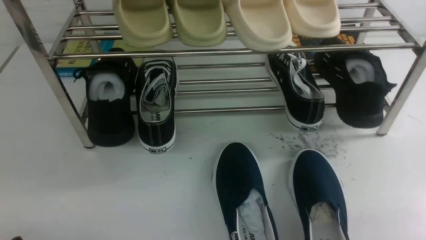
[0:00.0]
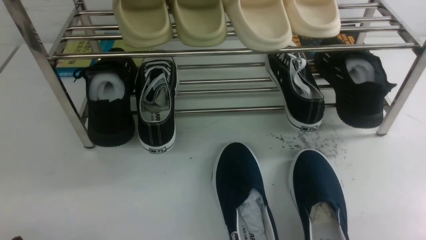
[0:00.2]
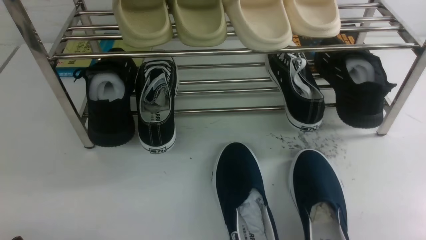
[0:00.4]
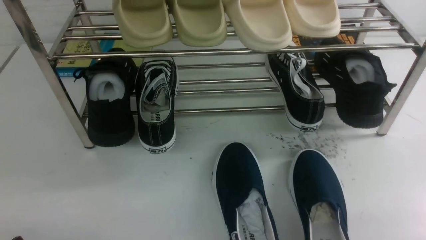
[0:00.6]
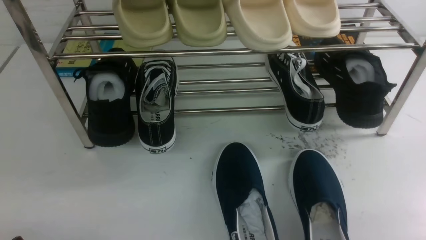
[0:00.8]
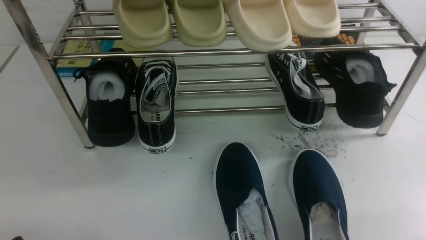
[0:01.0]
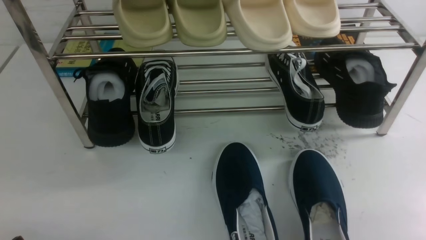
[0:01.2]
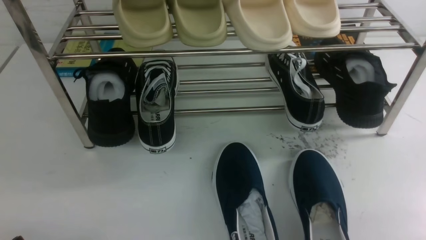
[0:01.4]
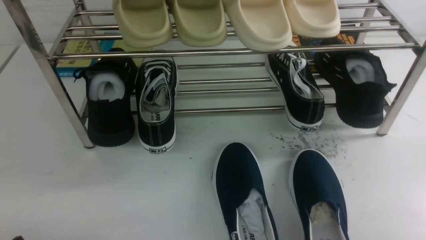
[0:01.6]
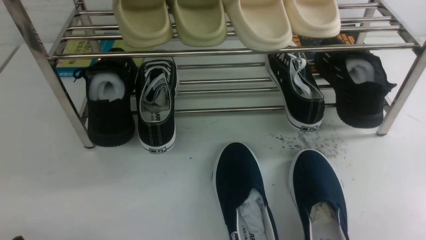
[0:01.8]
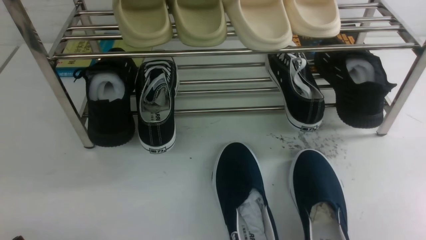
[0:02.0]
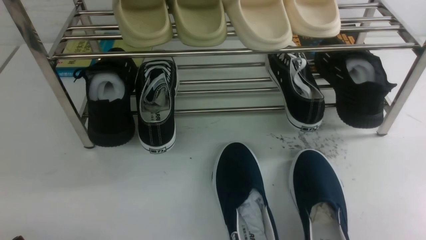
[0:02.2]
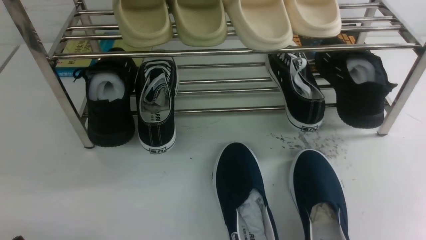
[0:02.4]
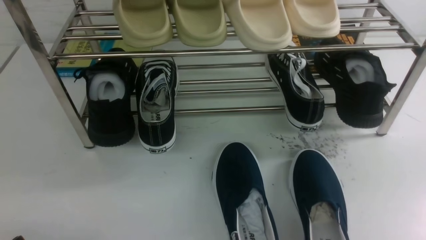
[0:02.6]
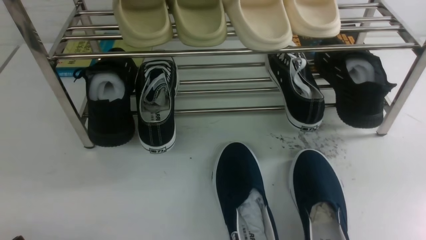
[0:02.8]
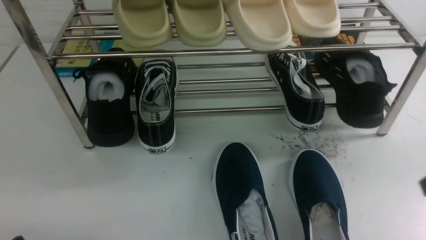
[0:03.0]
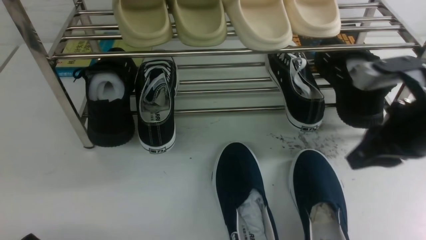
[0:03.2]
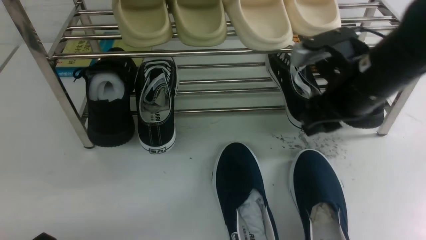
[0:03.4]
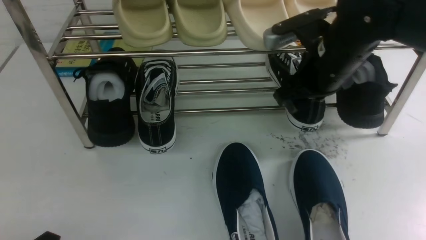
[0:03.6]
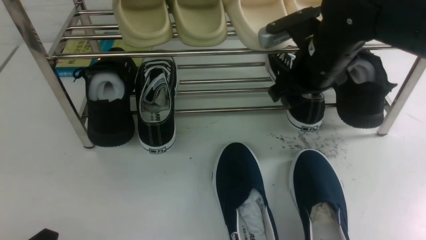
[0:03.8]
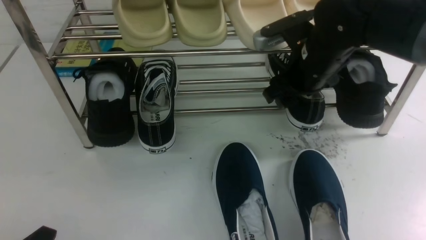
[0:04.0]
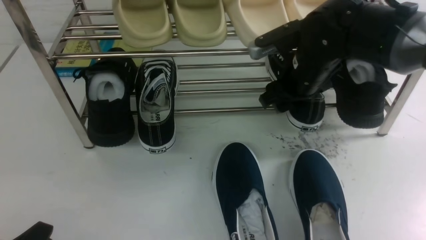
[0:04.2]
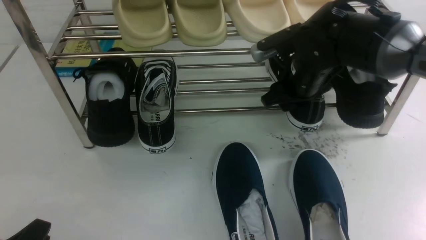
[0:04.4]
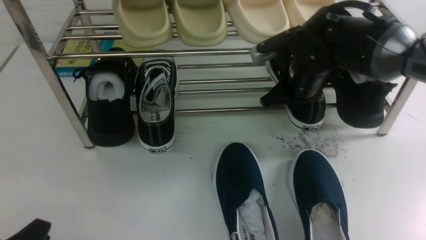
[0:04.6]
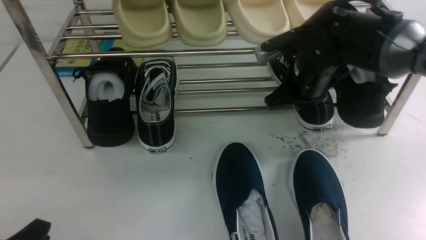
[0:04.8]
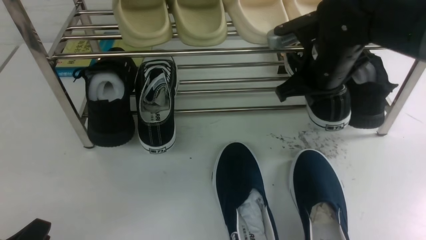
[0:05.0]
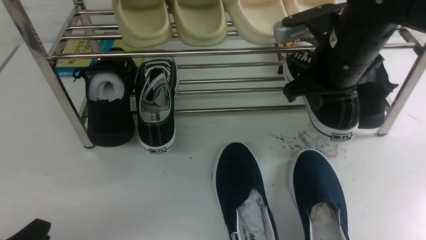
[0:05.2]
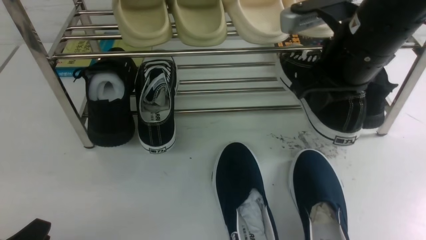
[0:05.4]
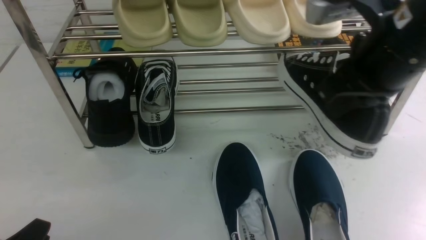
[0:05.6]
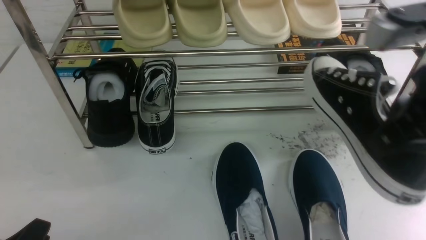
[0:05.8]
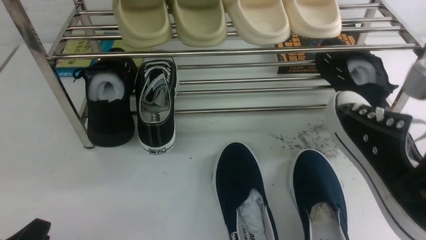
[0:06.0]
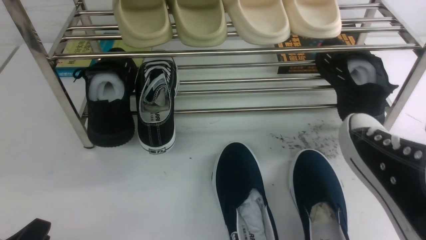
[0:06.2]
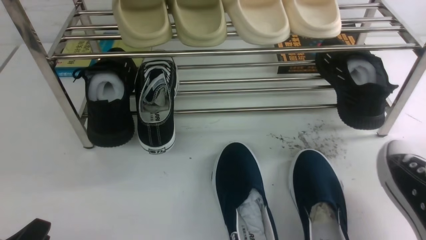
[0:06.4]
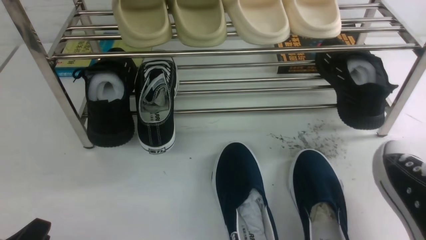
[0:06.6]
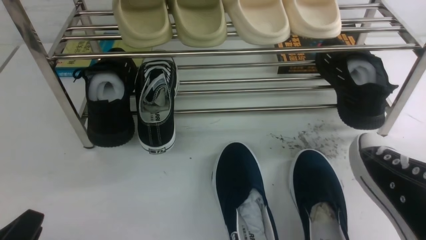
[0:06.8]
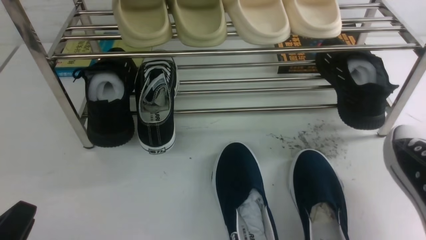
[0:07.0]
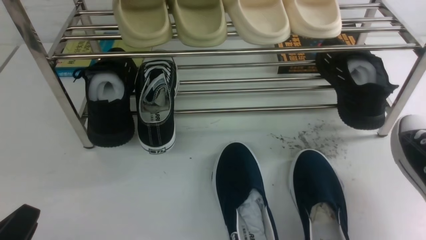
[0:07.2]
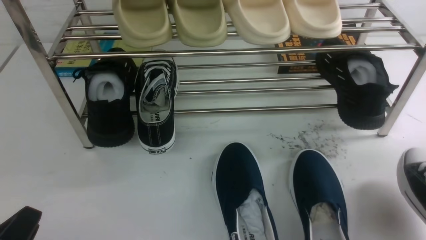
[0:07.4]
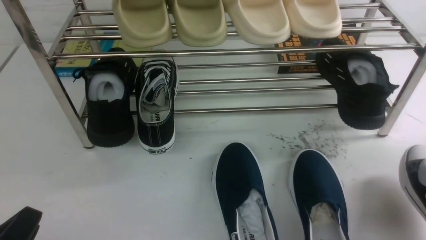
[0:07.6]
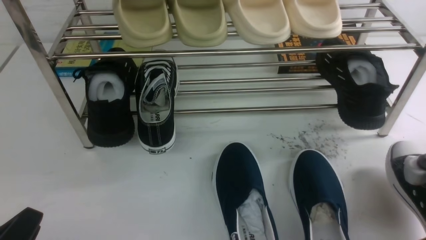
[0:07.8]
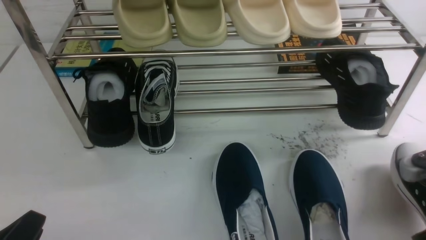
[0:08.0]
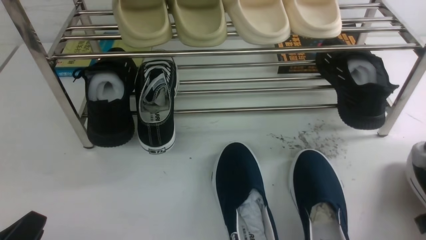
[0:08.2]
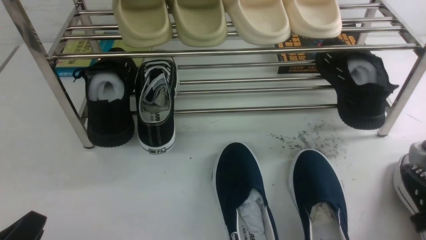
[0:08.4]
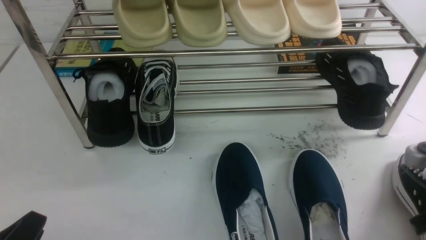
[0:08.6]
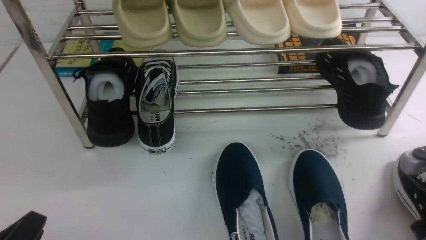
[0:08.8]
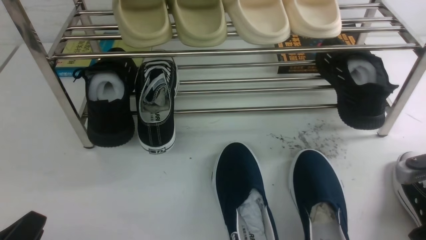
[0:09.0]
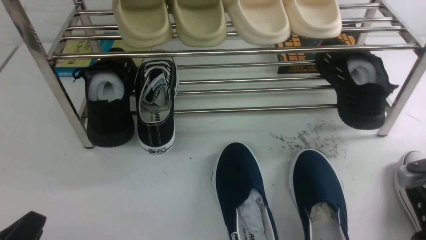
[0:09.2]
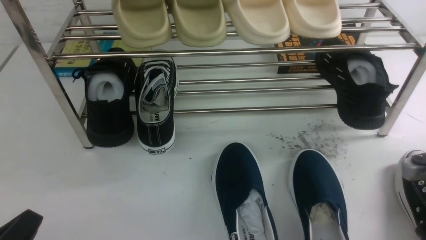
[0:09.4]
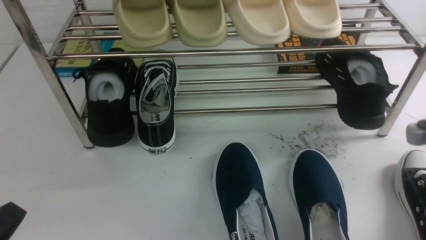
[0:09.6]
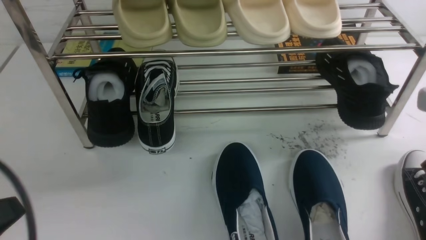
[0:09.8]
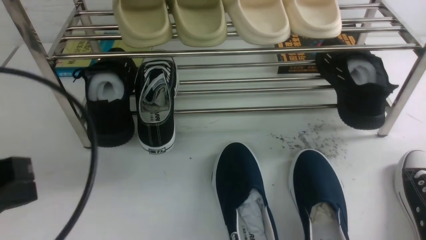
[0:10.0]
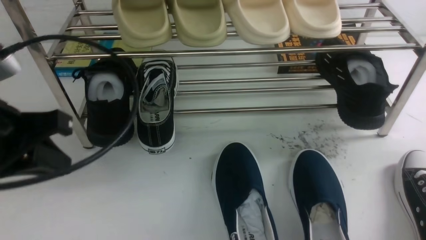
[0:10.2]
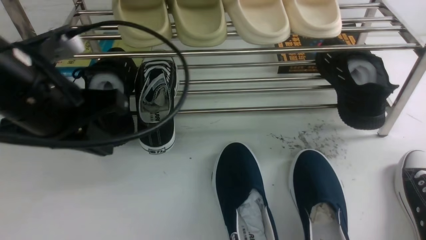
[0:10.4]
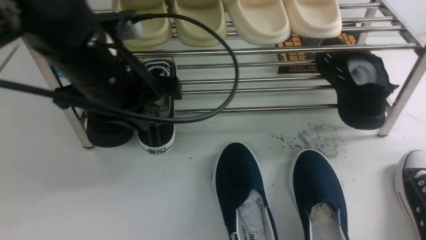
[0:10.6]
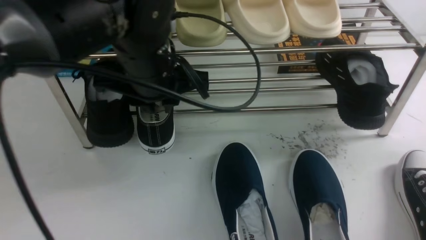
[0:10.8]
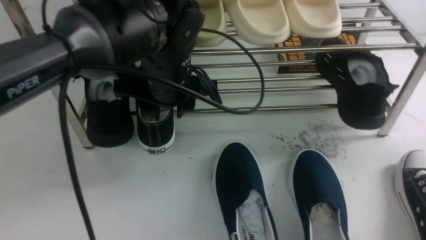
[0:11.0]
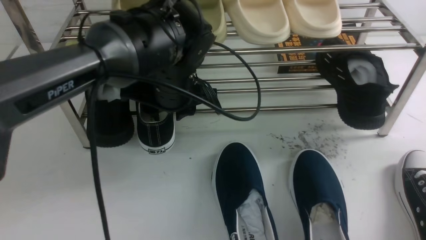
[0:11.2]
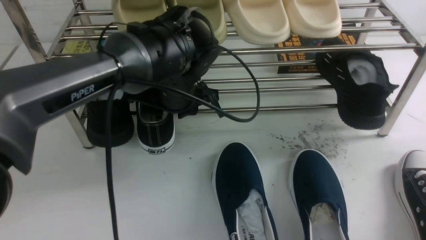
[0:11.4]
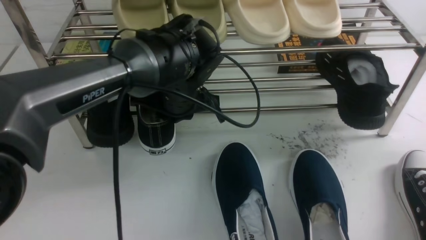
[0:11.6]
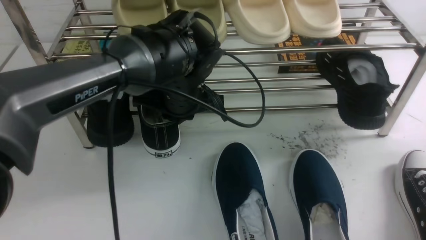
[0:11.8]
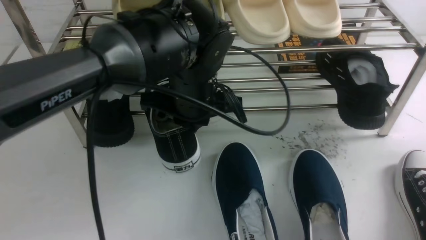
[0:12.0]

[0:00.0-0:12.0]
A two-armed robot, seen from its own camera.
Step, 0:00.0 to 0:05.0: use the right arm to clamp a shoe on the right side of the shoe rack.
Step, 0:05.2 to 0:10.0: use the right arm to take out the clamped shoe from the shoe rack and put it down.
0:03.0 to 0:04.4: The right gripper heads forward and to the left, covering roughly 25 cm, and opens its fingers.
0:04.4 to 0:06.0: The right gripper is displaced backward, upward and to the right by some 30 cm, and closes up.
0:06.0 to 0:07.6: The right gripper moves downward, some 10 cm.
0:07.6 to 0:09.0: The right gripper travels forward by approximately 5 cm.
0:09.0 to 0:10.4: The left gripper shifts roughly 25 cm forward, upward and to the right, and closes; the right gripper moves upward, approximately 10 cm, and opens, then closes once more.
0:10.4 to 0:12.0: The left gripper moves to the right and forward, roughly 15 cm, and opens, then closes once more.

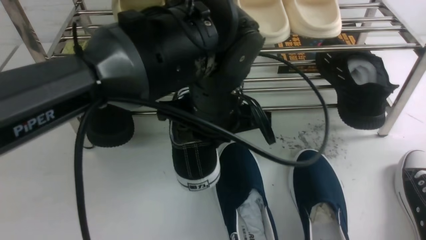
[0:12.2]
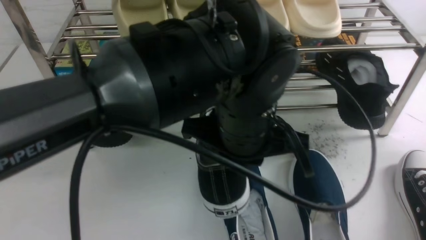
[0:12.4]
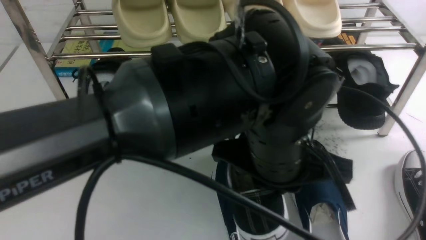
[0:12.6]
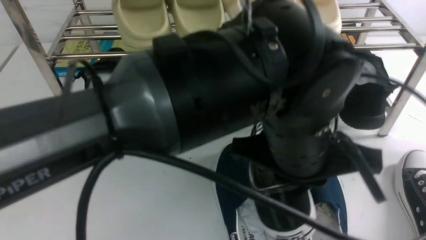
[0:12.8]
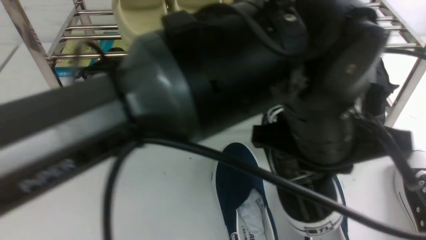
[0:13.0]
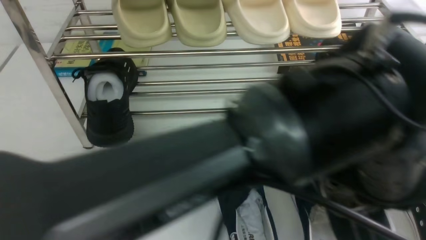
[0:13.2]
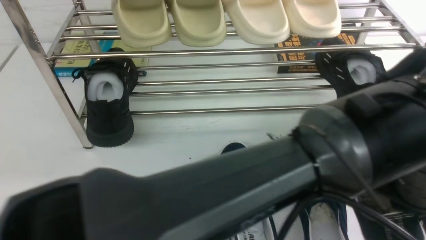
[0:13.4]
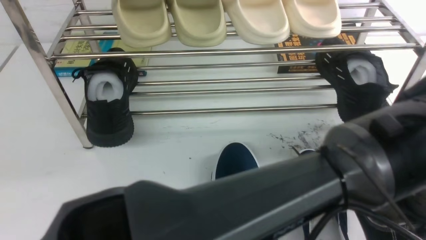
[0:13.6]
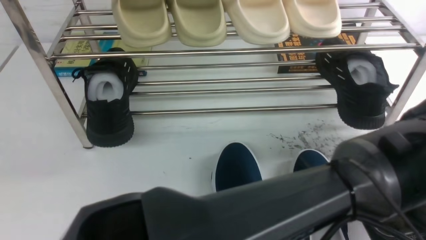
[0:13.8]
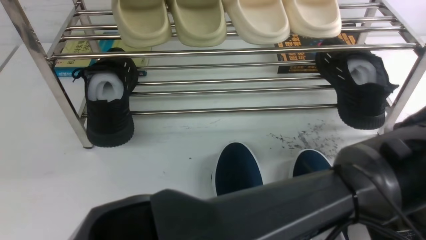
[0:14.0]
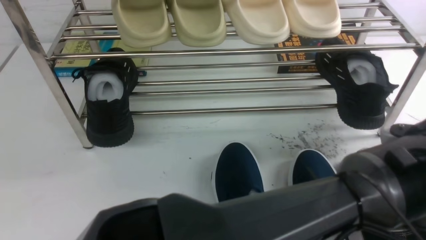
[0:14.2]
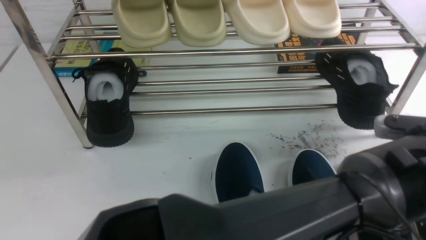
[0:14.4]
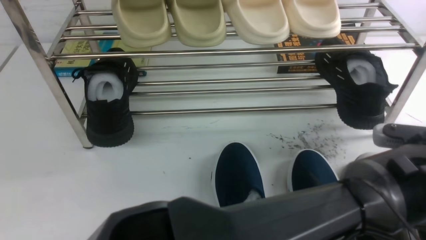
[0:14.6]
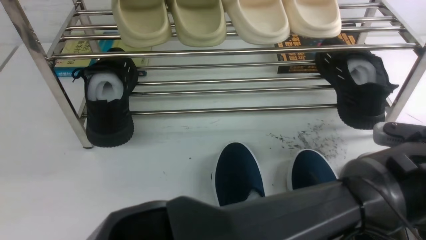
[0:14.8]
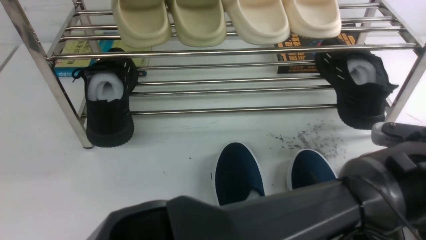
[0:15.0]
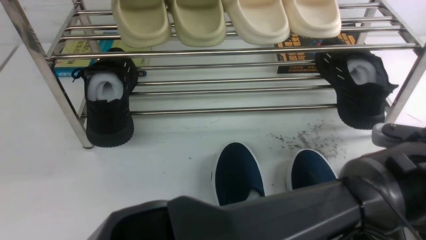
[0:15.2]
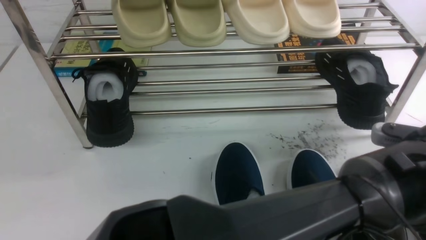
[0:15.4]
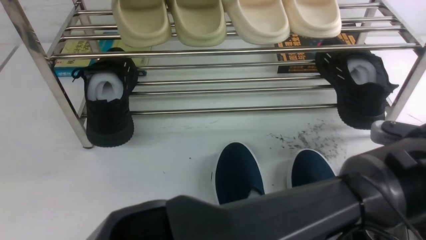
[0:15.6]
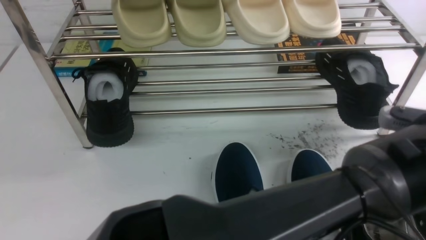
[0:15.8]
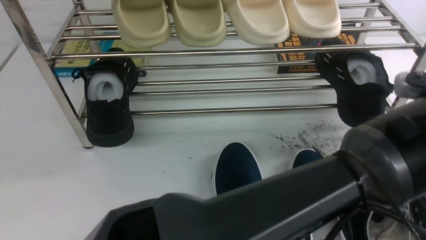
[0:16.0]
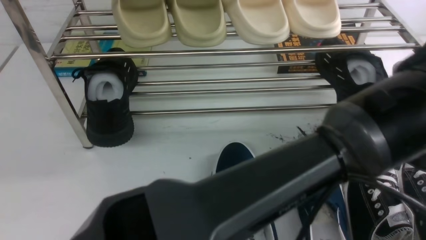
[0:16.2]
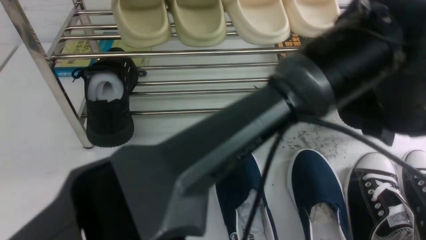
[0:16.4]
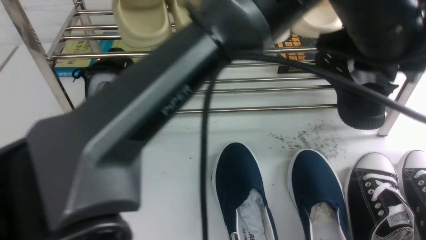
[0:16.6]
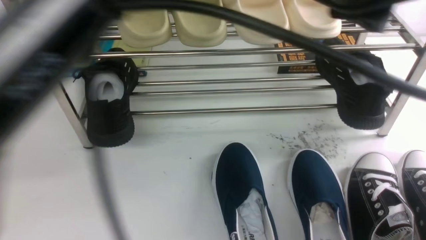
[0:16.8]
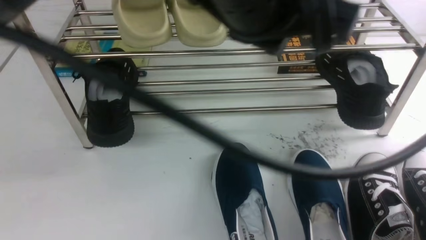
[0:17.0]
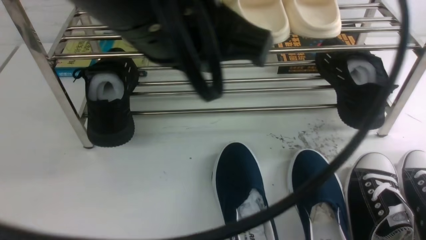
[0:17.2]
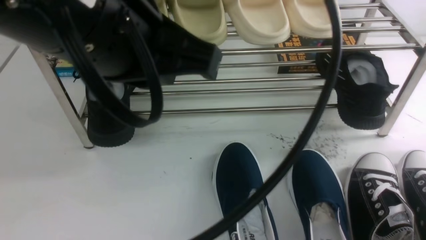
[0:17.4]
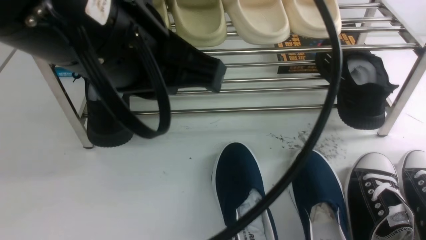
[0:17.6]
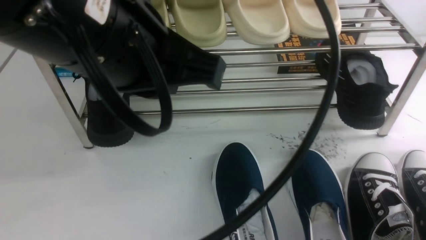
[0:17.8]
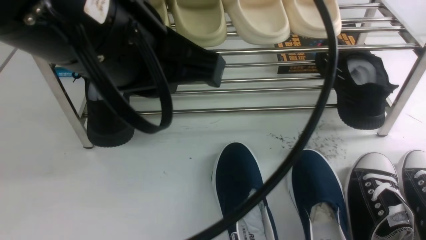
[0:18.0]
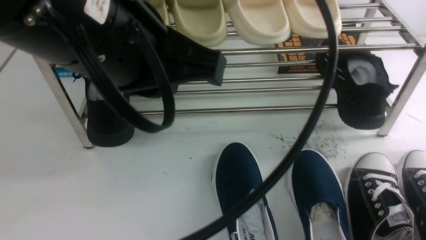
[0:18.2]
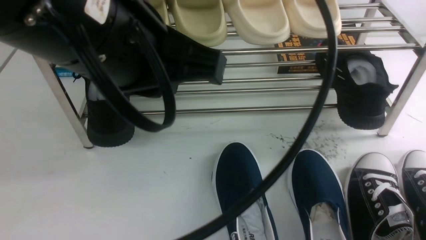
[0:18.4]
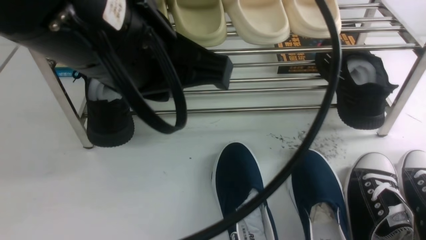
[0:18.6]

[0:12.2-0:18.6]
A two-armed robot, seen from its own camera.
Step, 0:12.2 to 0:16.0: Use your left arm to remove the clamped shoe from the shoe rack and put it down.
0:12.2 to 0:13.8: The right gripper travels backward by some 5 cm, and closes up. Meanwhile the left gripper moves to the right and backward, some 25 cm.
0:13.8 to 0:15.4: The left gripper opens up. Meanwhile the right gripper opens up.
0:15.4 to 0:17.0: The left gripper heads to the left and upward, covering approximately 30 cm, and closes. Meanwhile the right gripper is displaced backward by roughly 5 cm, and closes its fingers.
0:17.0 to 0:18.6: The right gripper shifts roughly 10 cm downward, while the left gripper shifts approximately 10 cm to the left.
